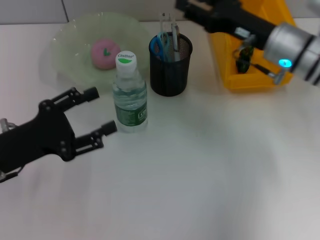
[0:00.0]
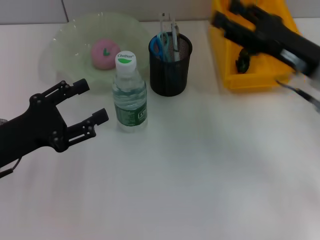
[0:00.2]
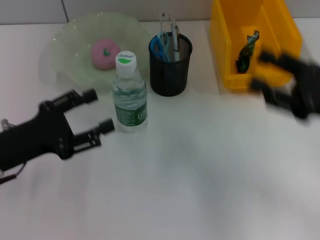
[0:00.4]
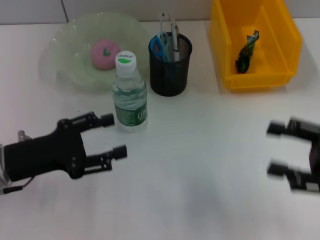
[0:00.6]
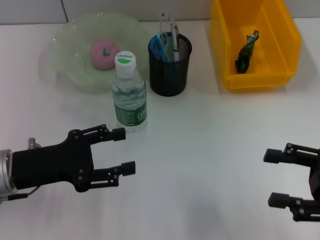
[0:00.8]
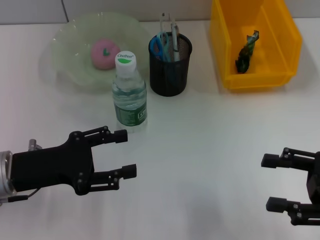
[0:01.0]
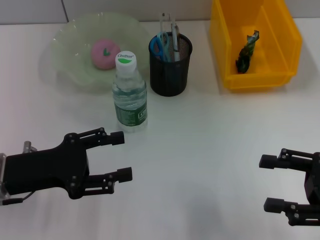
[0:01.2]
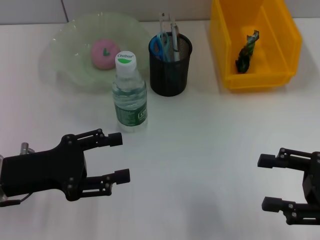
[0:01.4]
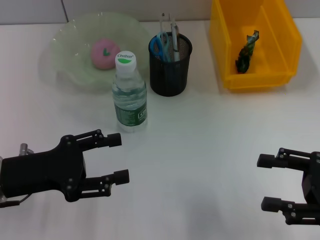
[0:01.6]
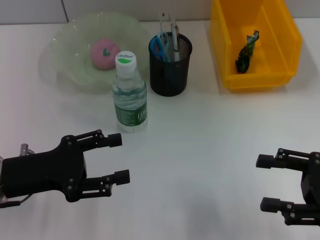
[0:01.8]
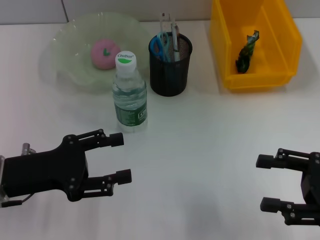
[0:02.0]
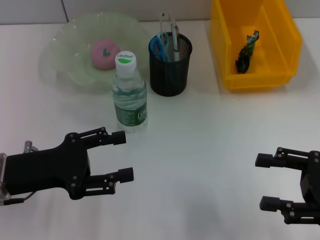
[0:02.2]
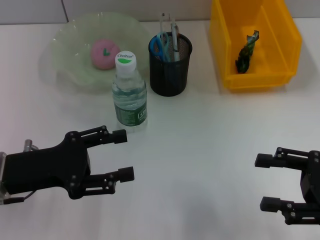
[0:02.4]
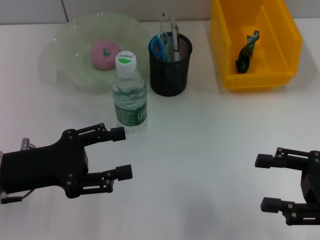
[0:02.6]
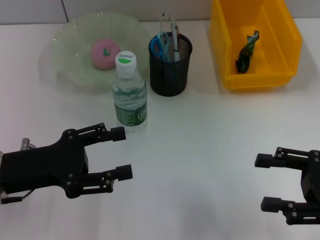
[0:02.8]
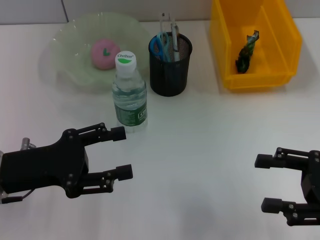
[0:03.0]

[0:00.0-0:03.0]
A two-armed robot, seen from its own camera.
0:00.0 to 0:01.6: The right gripper moves backward and to the right, roughly 20 cm.
0:01.6 to 0:03.0: The two grippers keep their place.
